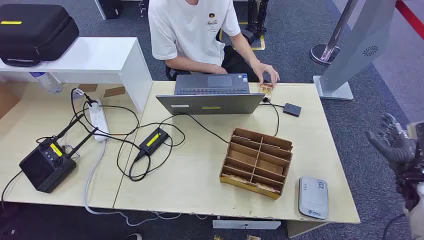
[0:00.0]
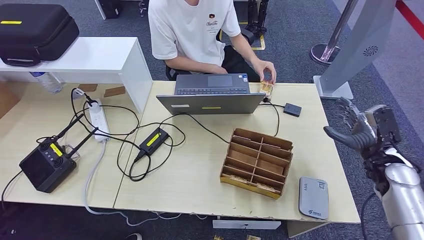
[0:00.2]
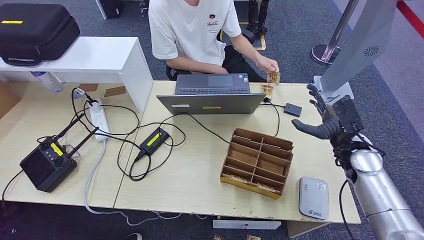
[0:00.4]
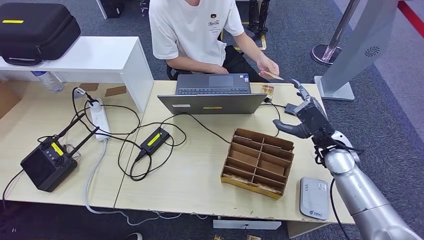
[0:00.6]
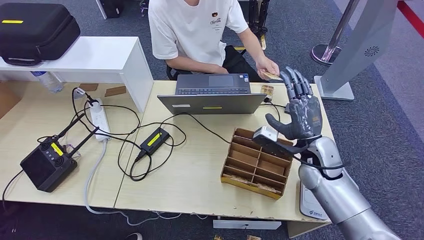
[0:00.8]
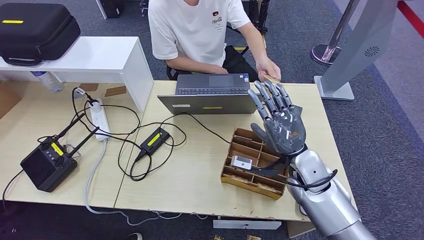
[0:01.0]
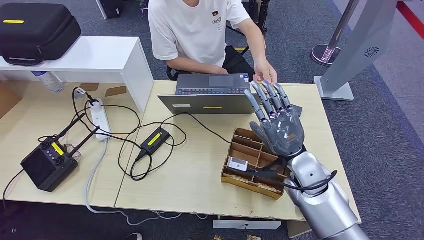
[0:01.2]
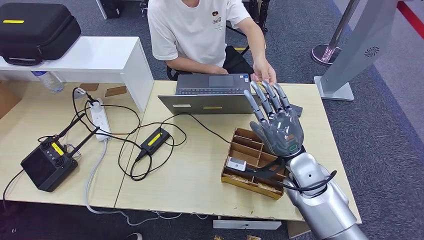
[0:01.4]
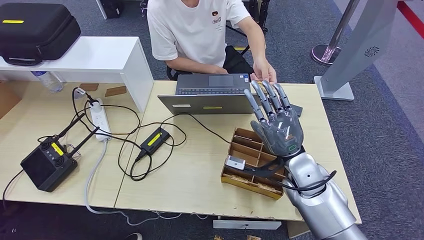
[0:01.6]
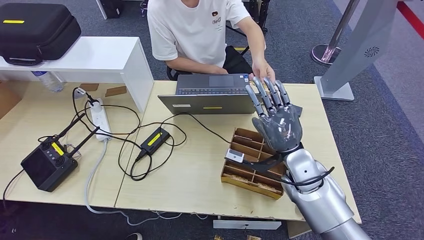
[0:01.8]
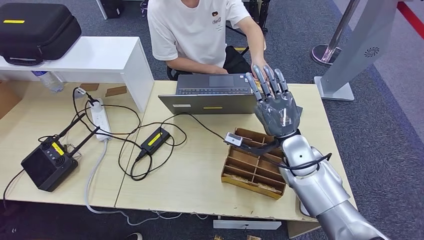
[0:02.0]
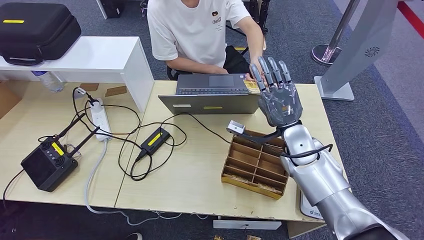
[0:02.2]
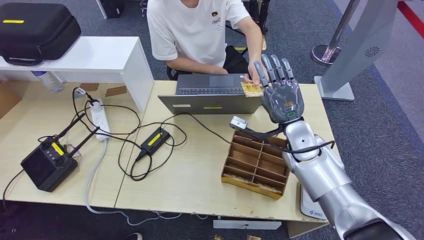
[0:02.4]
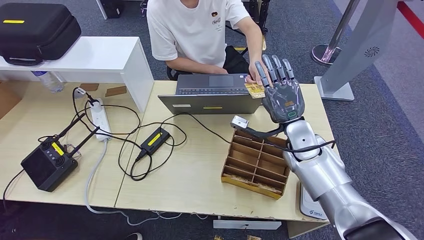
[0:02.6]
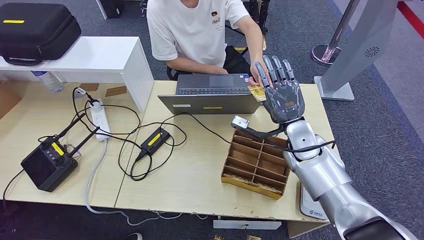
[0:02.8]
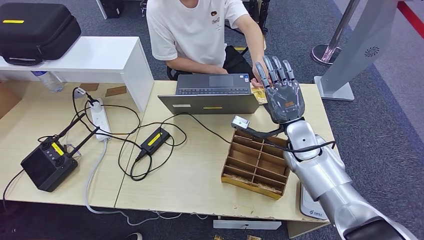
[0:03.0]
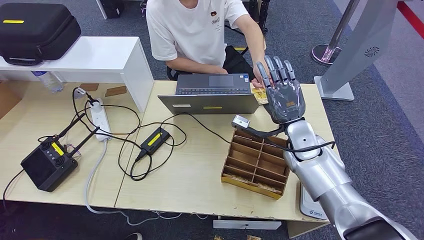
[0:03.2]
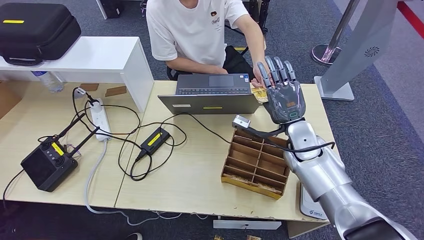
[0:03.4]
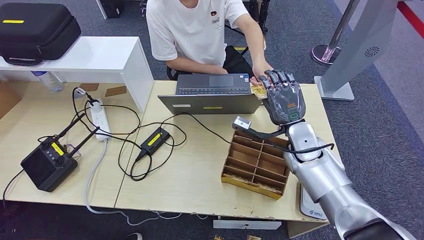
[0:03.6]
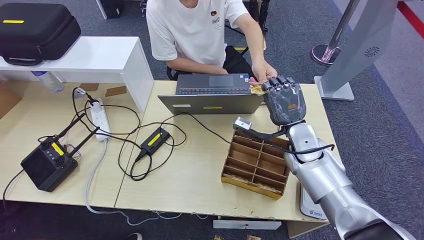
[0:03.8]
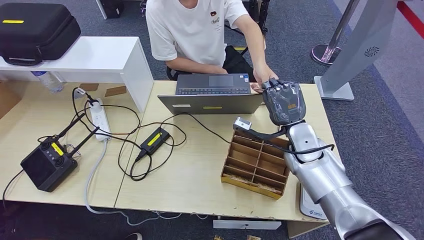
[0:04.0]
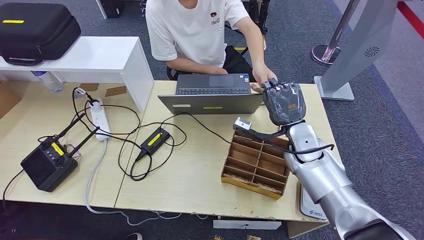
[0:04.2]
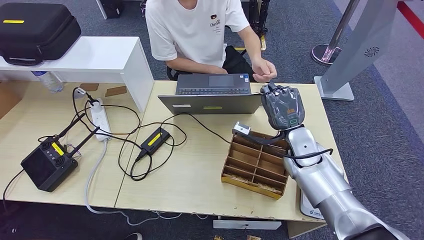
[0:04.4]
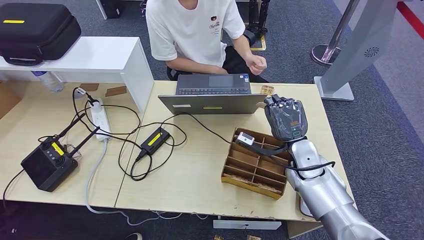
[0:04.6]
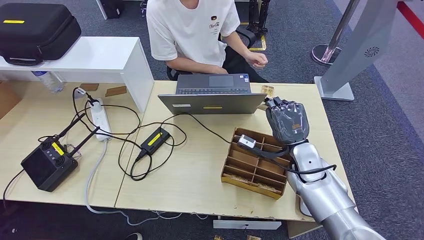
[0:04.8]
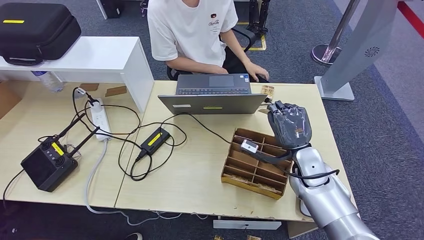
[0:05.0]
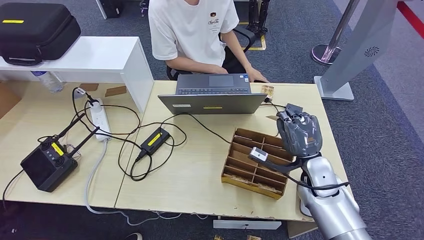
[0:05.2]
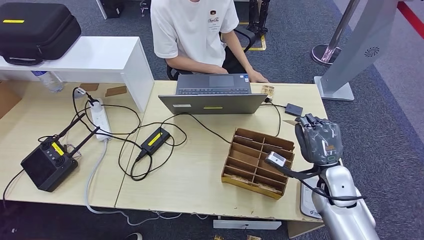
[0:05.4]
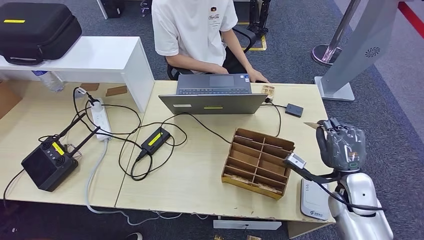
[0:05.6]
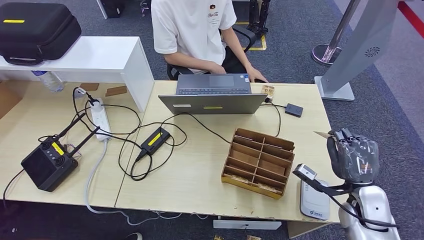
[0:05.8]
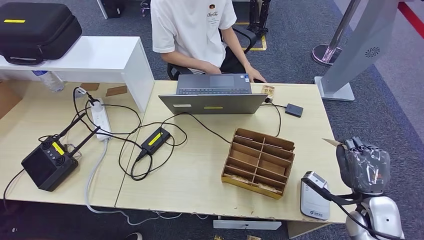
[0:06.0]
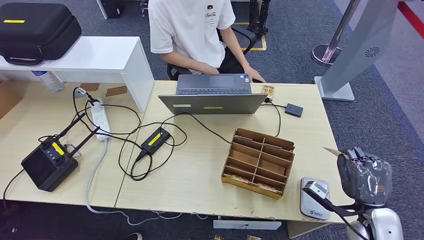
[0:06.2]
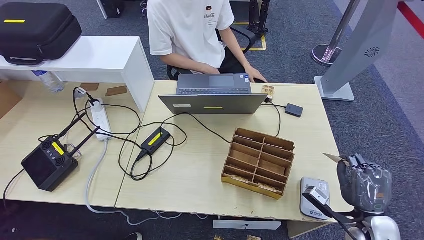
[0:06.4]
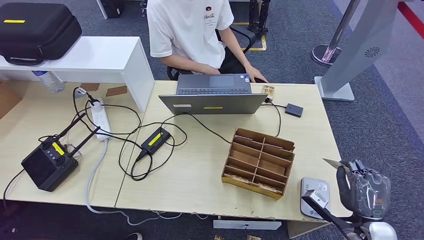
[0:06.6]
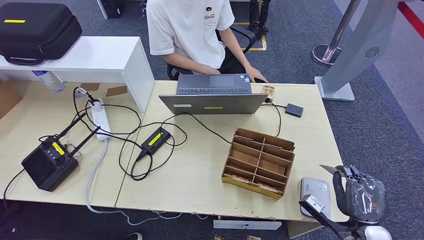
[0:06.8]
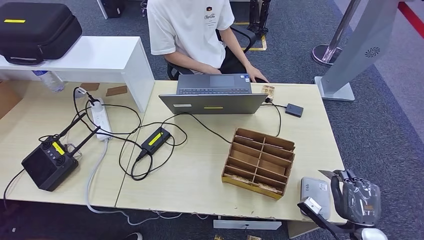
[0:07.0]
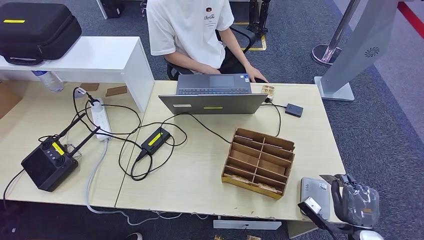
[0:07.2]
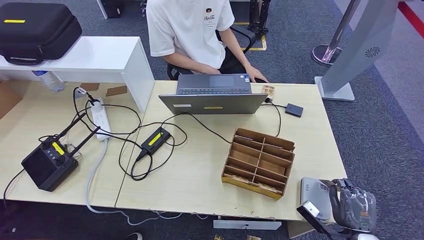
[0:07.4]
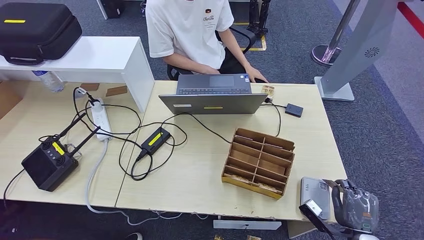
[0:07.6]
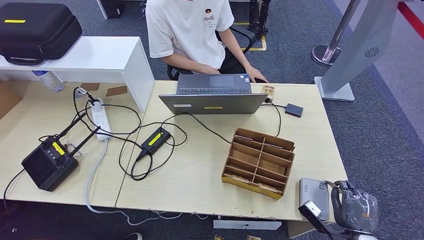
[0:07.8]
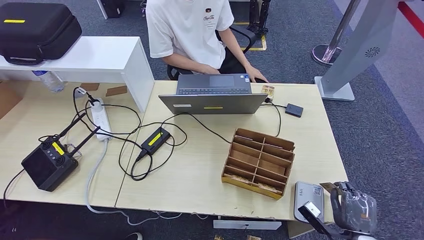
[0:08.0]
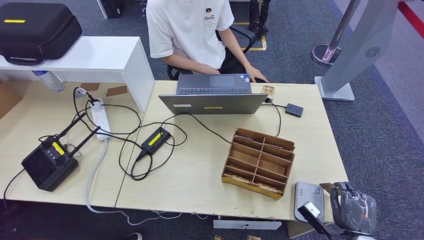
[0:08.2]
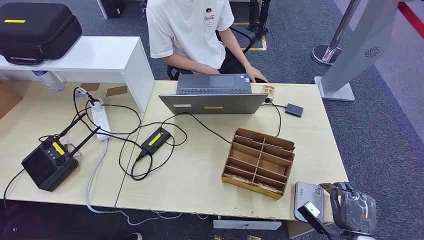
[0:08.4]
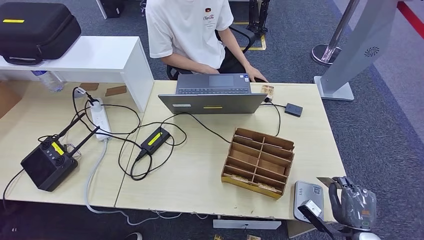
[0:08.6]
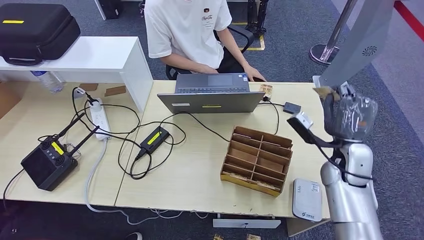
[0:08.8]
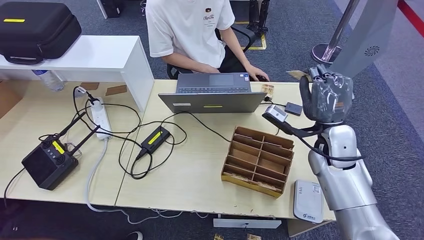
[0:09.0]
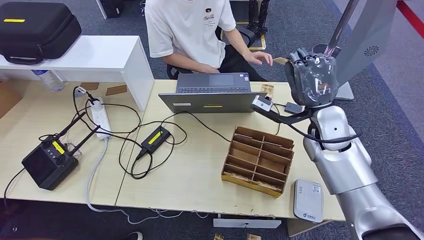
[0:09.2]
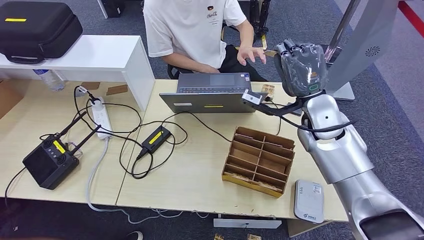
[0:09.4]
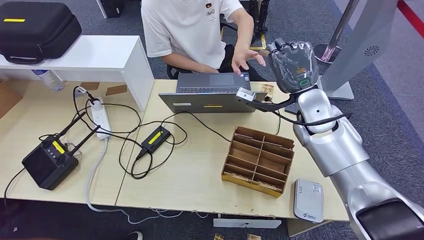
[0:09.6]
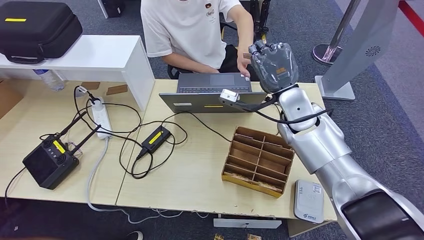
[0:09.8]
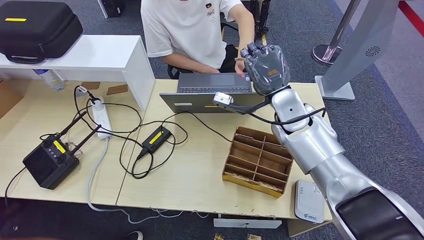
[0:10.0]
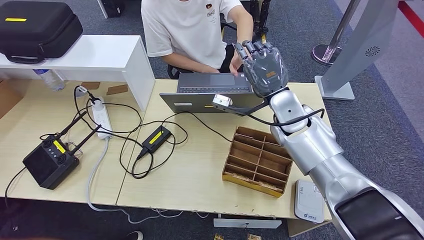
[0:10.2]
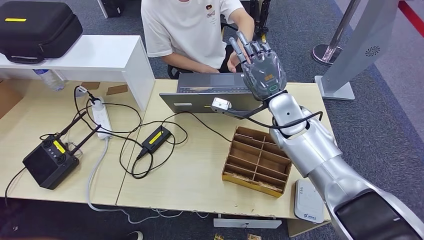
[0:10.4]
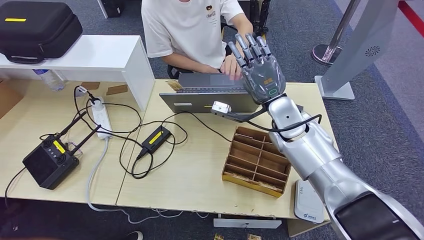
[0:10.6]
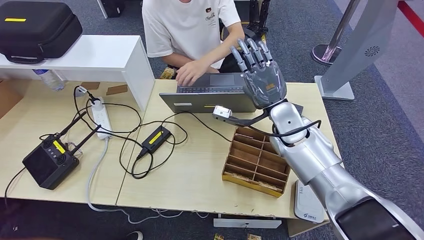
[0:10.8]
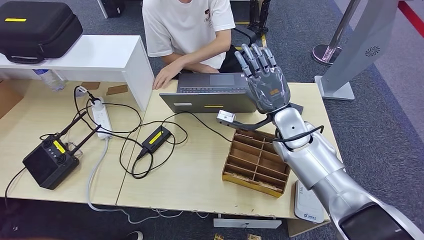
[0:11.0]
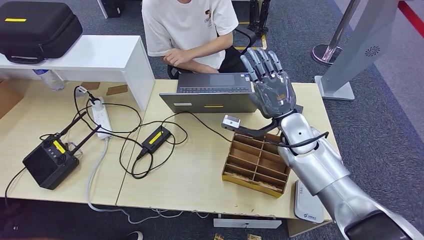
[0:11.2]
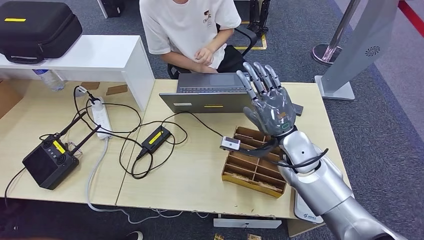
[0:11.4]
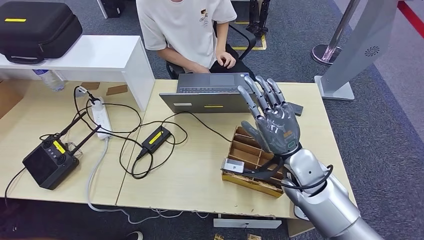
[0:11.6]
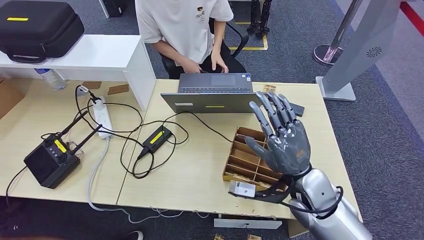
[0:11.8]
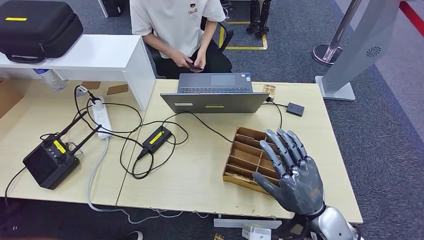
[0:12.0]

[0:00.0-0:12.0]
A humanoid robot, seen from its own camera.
Step, 0:00.0 to 0:04.4: Take the ID card from the person's hand.
Step, 0:04.8 to 0:08.2: Place the ID card on the card reader.
Step, 0:08.8 to 0:10.6: Hand the ID card to the person.
0:01.6 to 0:03.0: The right hand heads forward, covering some 5 cm.
0:03.0 to 0:04.4: The hands stay close to where they were, moving slightly.
0:04.4 to 0:06.0: The right hand heads to the right, backward and downward, covering approximately 25 cm.
0:06.0 to 0:07.6: The right hand is displaced downward and backward by about 15 cm.
0:07.6 to 0:09.0: The right hand travels upward, forward and to the left by roughly 30 cm.
0:09.0 to 0:10.4: The right hand goes some 15 cm to the left and forward.
0:10.4 to 0:12.0: The right hand goes some 25 cm backward, downward and to the right.

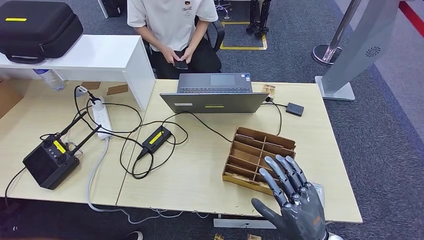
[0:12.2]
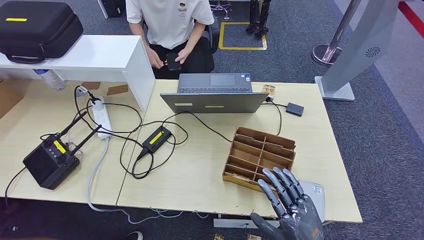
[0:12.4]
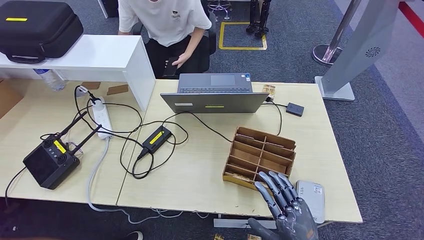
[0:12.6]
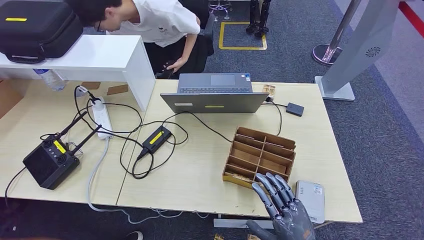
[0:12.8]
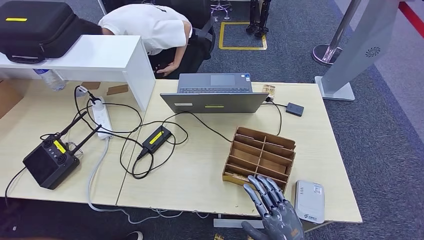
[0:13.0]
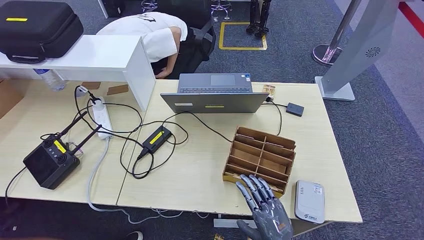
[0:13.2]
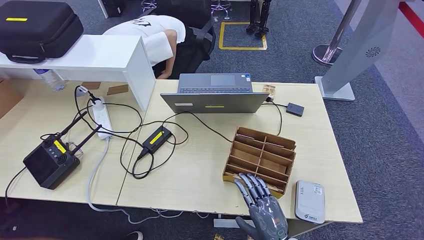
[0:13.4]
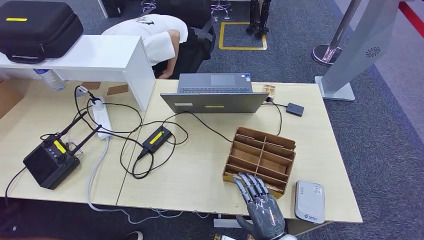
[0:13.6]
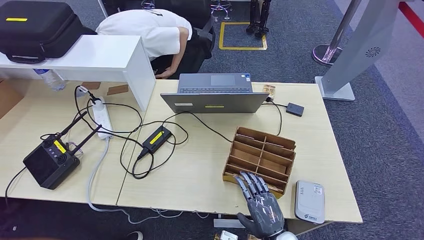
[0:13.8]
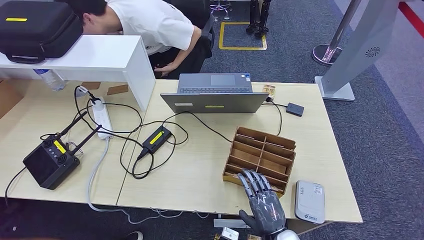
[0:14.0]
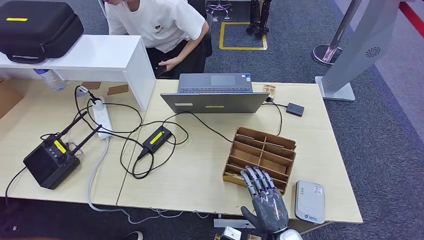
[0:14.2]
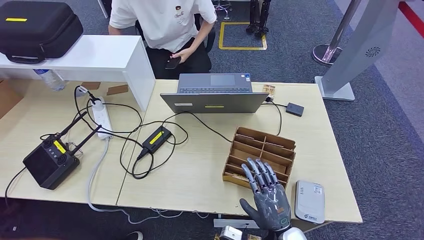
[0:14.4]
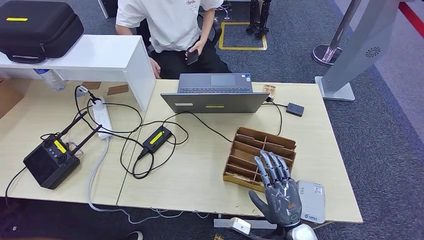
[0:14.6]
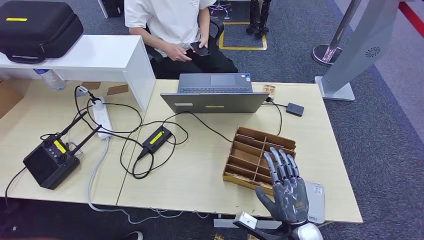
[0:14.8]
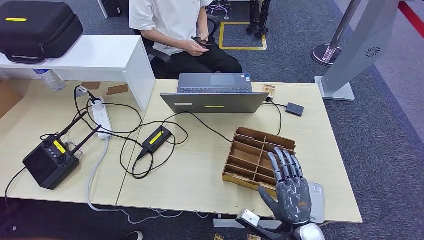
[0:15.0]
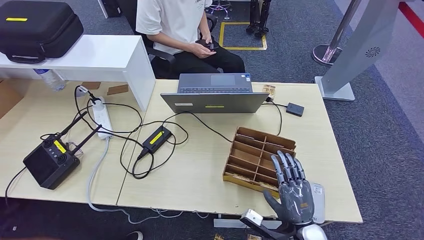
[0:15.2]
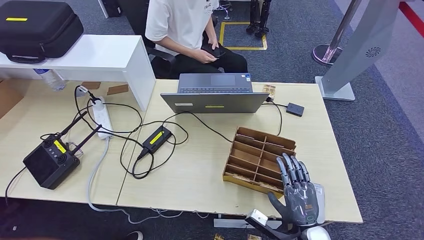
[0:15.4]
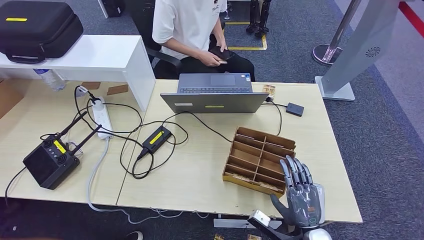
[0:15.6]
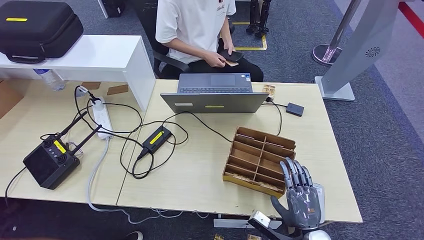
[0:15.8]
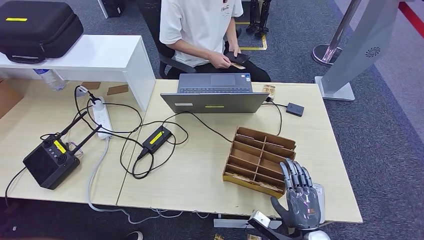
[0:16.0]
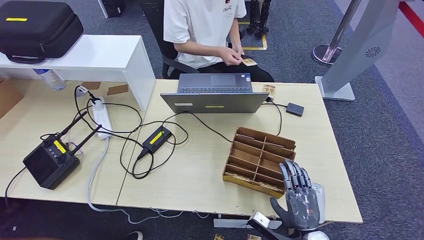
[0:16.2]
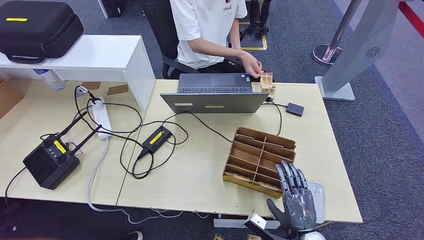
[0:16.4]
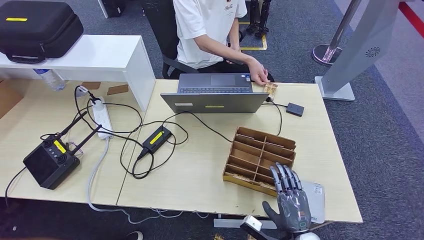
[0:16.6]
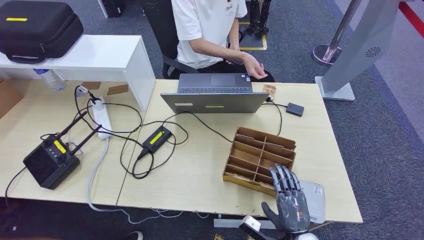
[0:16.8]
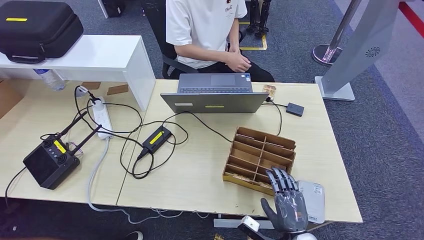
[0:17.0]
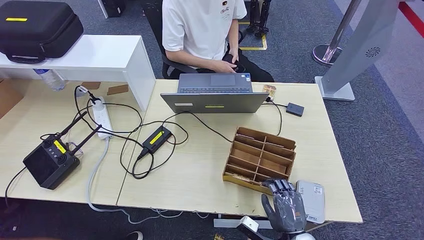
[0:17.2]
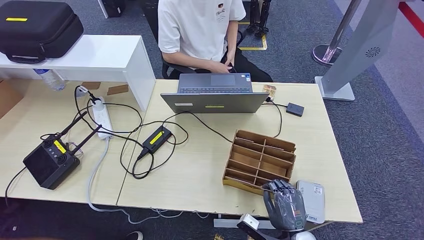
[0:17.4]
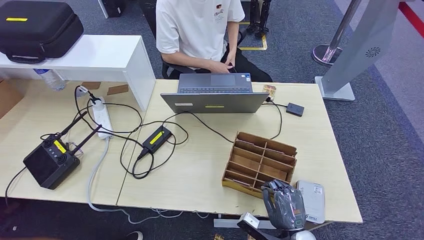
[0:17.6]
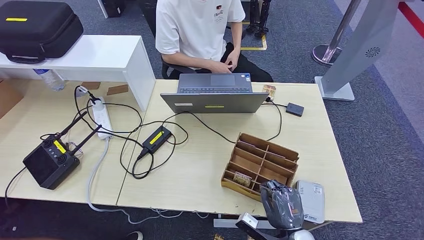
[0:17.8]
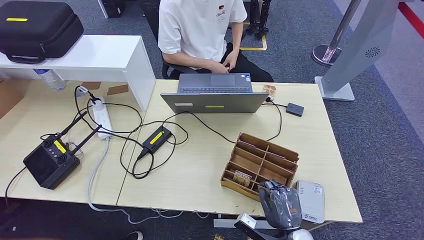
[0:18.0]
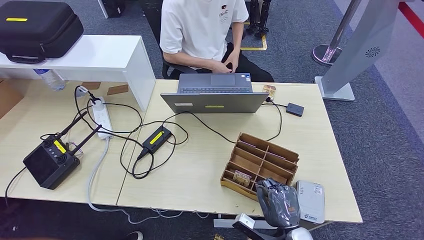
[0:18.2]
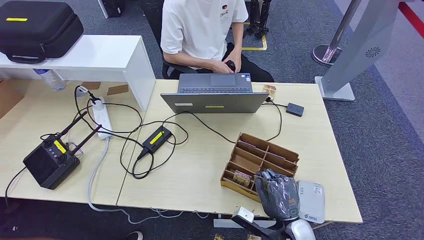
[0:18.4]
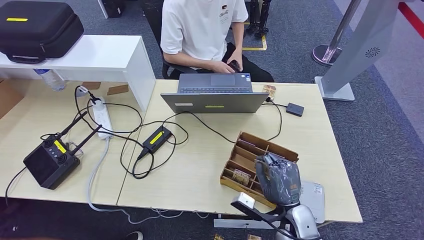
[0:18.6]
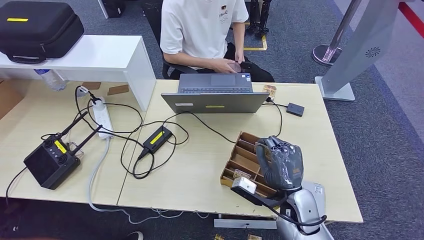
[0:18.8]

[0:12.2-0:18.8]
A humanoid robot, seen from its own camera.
Step, 0:12.2 to 0:18.2: Pick up the room key from the key card box.
0:12.2 to 0:13.8: The right hand goes about 10 cm downward.
0:13.8 to 0:15.4: The right hand travels to the right by some 5 cm.
0:15.4 to 0:17.2: There are only small adjustments of the hands.
0:17.2 to 0:18.8: The right hand goes roughly 15 cm upward and forward.
